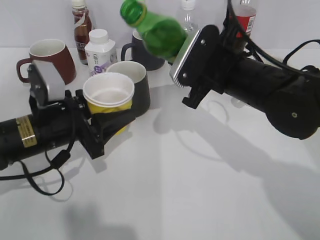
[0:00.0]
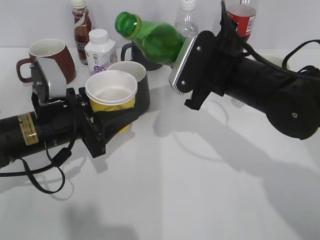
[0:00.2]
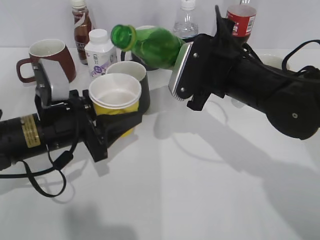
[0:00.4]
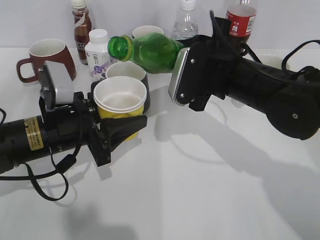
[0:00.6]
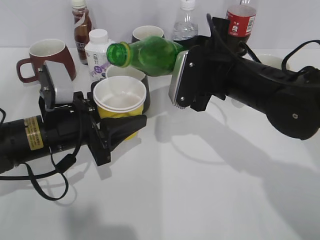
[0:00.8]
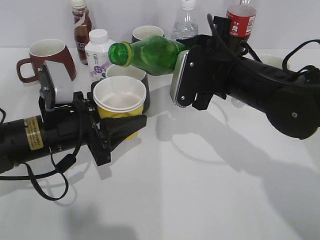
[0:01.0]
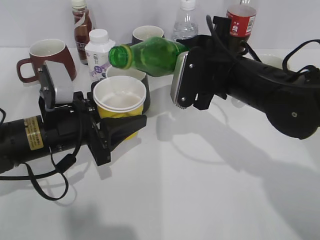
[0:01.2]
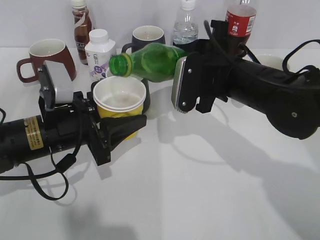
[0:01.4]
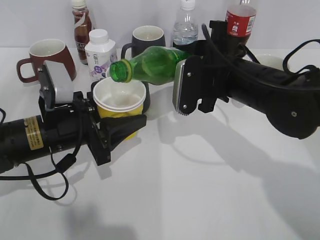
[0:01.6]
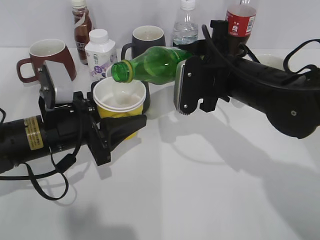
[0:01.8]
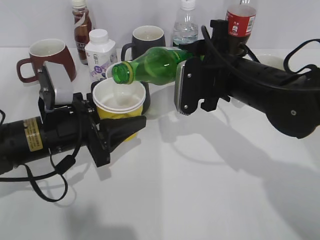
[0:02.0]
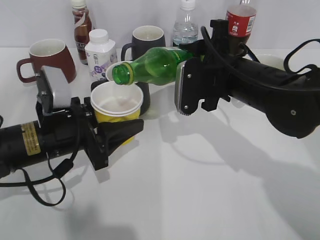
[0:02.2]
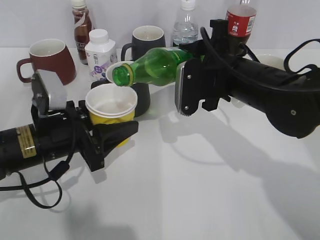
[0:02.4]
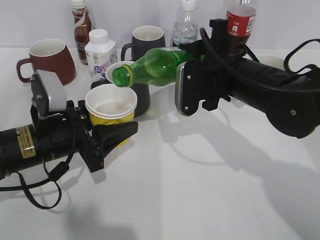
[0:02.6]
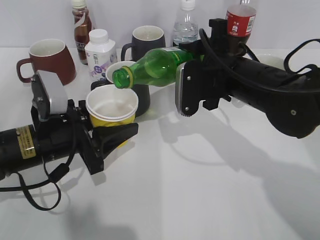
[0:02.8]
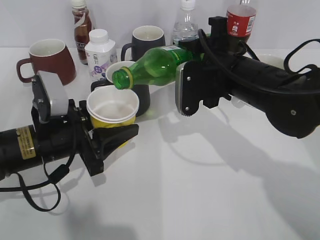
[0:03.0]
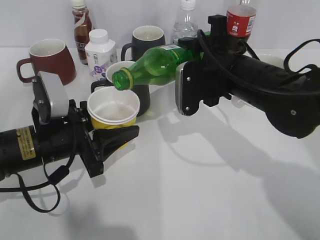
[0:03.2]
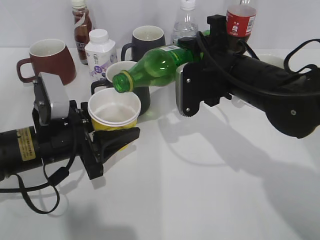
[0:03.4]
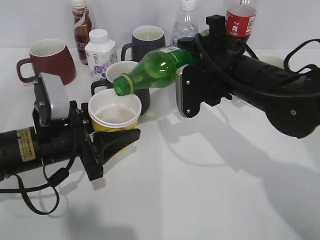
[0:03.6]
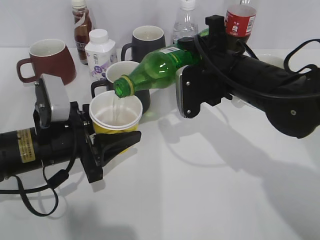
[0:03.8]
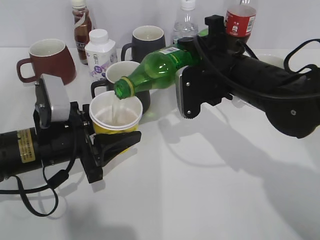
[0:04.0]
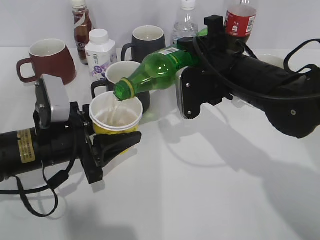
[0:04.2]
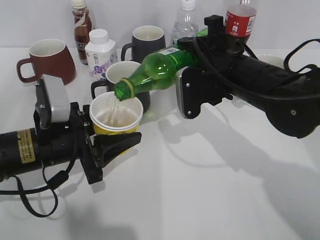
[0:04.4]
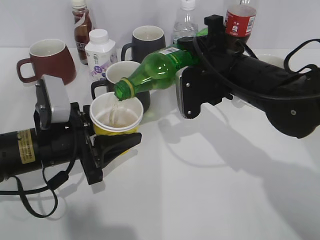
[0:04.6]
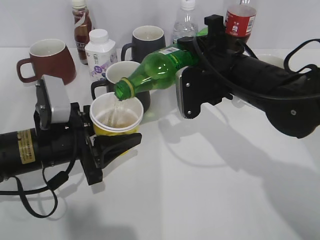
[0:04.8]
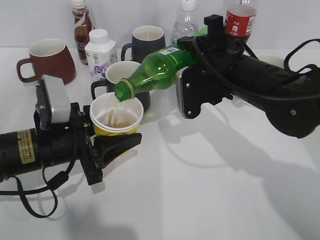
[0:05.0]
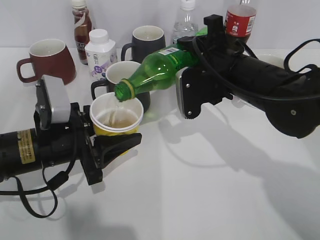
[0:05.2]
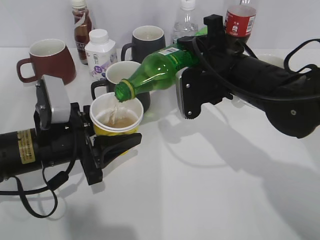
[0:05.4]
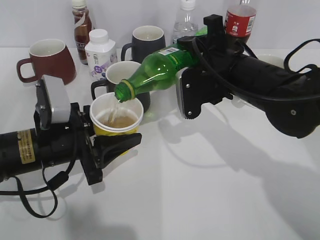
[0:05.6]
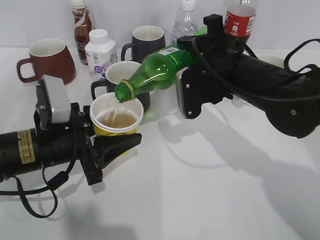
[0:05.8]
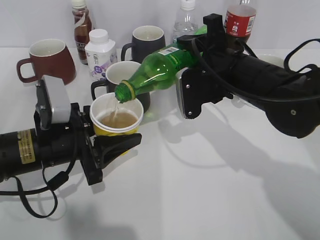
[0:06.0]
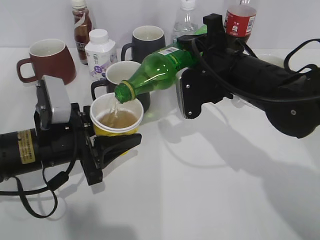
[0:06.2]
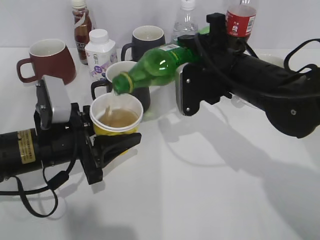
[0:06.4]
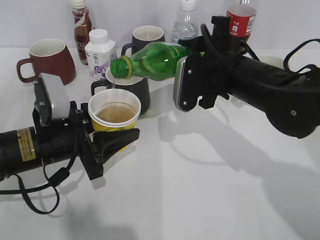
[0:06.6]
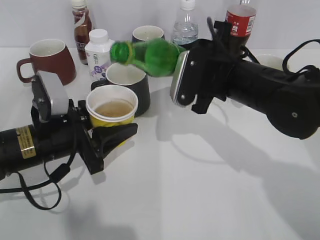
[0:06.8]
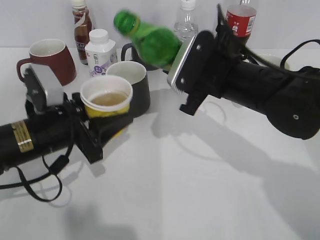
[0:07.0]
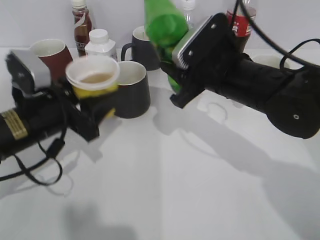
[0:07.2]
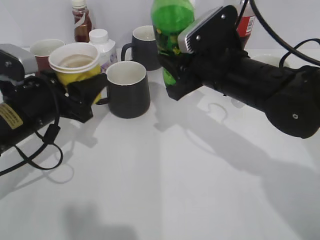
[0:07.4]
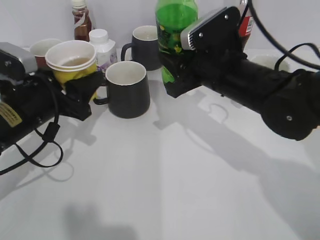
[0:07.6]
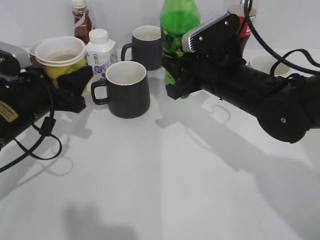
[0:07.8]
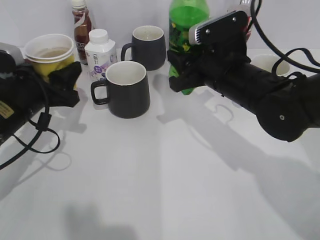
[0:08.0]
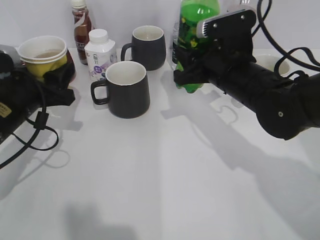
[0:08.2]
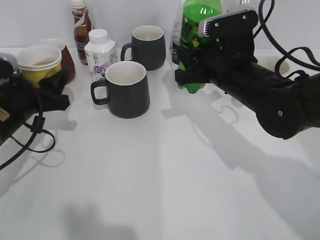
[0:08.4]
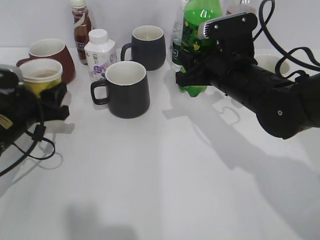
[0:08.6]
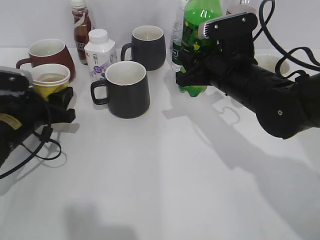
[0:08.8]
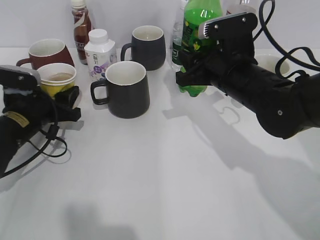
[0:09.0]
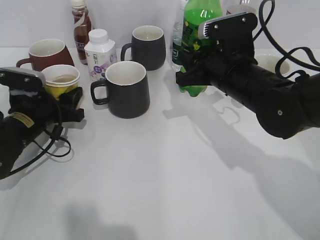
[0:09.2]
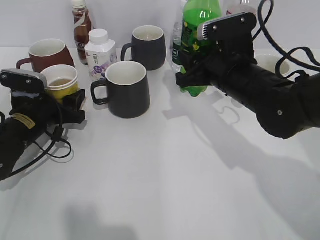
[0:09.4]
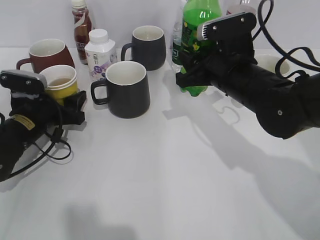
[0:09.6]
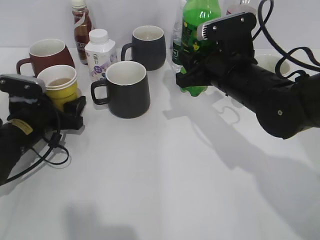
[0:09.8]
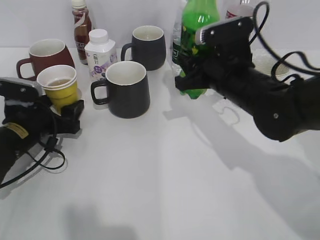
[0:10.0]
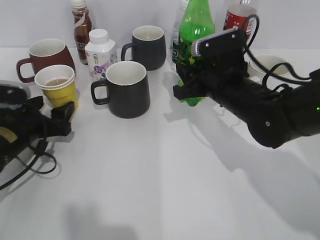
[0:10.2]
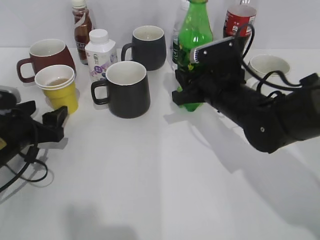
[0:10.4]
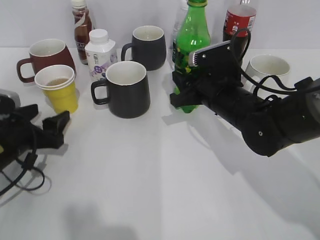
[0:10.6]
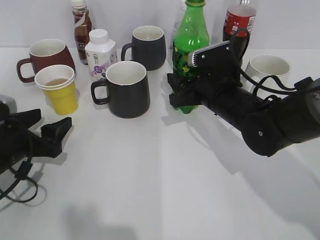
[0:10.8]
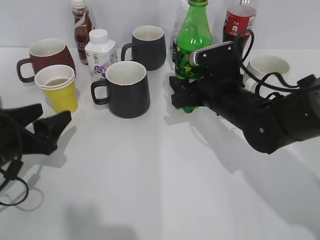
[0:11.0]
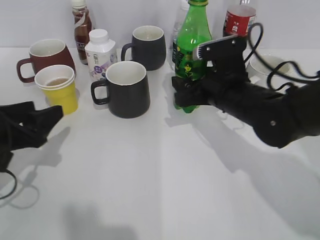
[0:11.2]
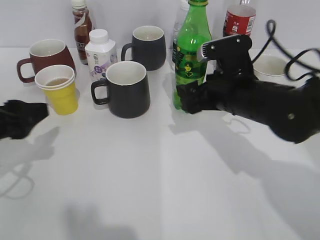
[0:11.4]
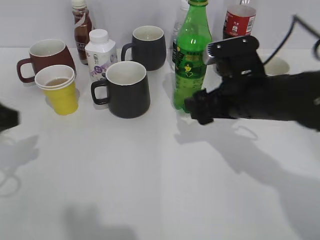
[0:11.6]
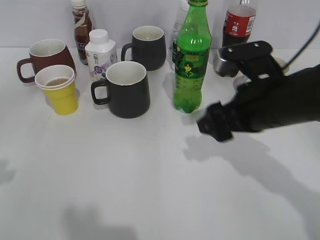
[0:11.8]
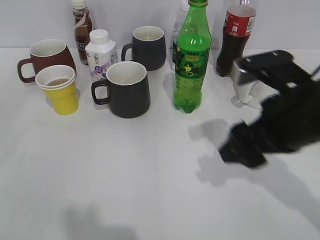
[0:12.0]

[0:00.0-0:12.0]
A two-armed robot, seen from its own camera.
Step, 0:00.0 to 0:06.6: Pour the sprite from bottle to cup with right gripper.
Step, 0:06.8 to 0:09.4: Place the yellow paper cup on the table with left gripper.
Step, 0:09.6 to 0:11.2: Place the sprite bottle on the table with right gripper.
0:01.6 to 0:04.4: The grippers move only a little.
0:04.4 to 0:06.0: Neither gripper changes place.
0:06.0 to 0:07.6: The left gripper changes place by about 5 cm.
0:07.6 to 0:09.0: The left gripper shifts some 5 cm downward.
0:09.0 to 0:10.4: The left gripper opens up.
0:10.4 to 0:12.0: The left gripper heads upward and backward, covering some 25 cm, while the right gripper shifts some 15 cm backward and upward, and opens its fingers.

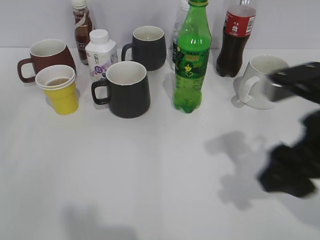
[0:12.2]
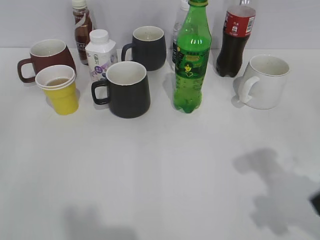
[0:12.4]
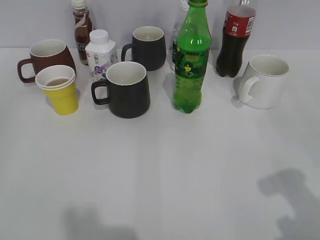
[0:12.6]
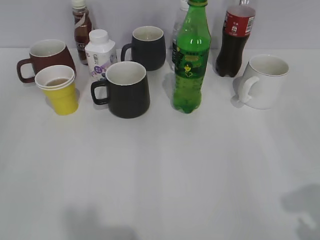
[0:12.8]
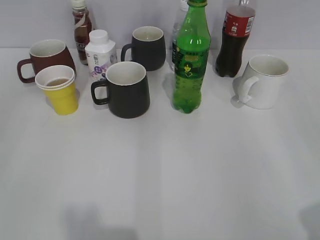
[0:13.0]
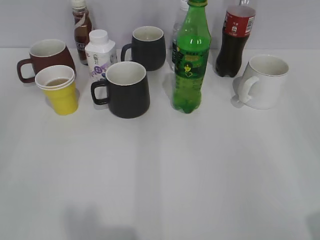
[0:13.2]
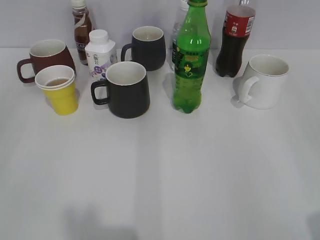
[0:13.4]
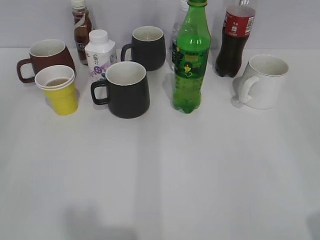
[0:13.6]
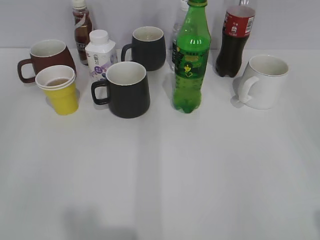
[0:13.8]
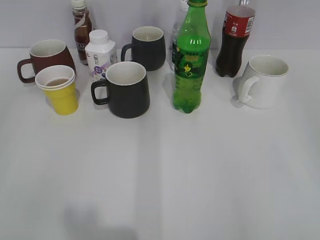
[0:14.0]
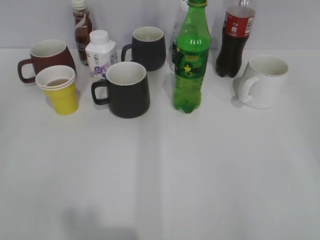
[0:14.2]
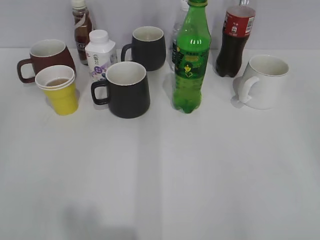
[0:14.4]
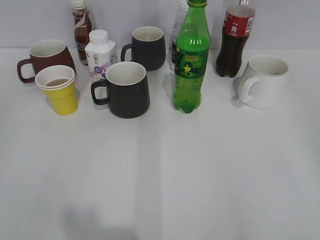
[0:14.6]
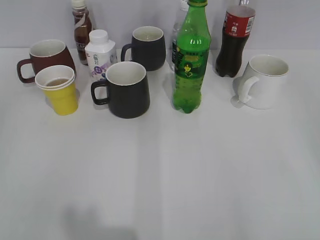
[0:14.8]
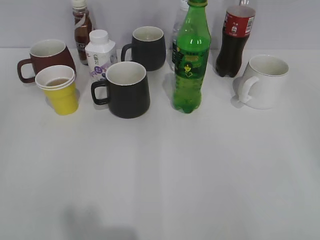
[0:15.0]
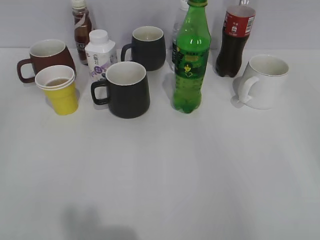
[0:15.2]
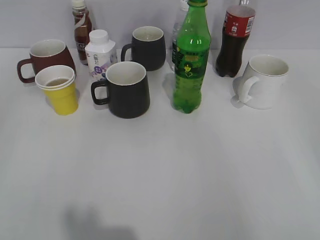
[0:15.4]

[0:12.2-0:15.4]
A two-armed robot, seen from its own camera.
0:12.2 to 0:13.8: The left gripper is displaced backward by roughly 5 cm; the right gripper goes some 20 cm backward and to the right.

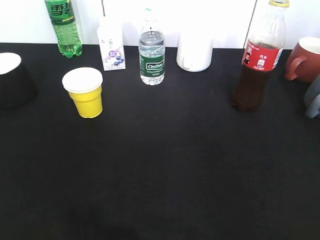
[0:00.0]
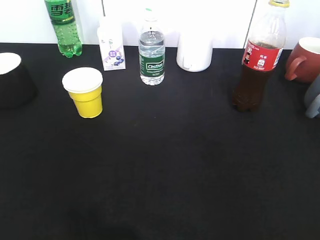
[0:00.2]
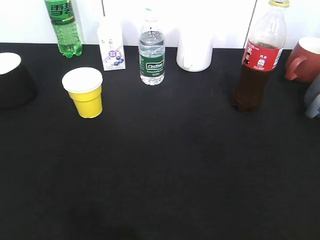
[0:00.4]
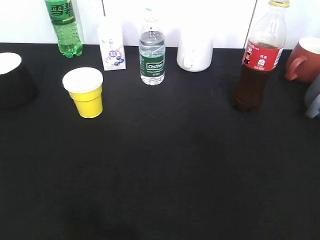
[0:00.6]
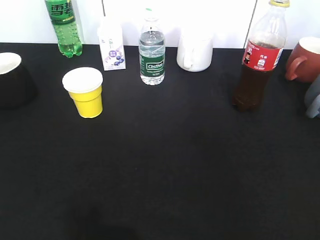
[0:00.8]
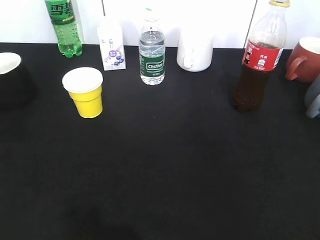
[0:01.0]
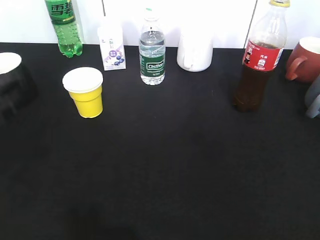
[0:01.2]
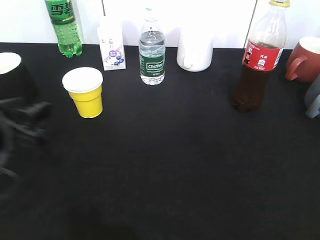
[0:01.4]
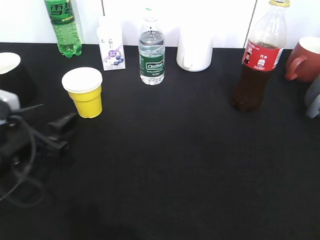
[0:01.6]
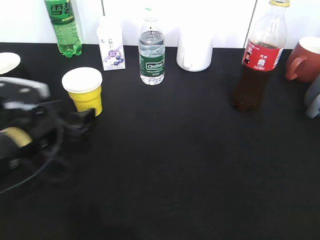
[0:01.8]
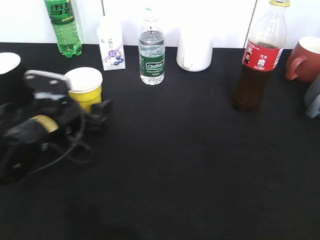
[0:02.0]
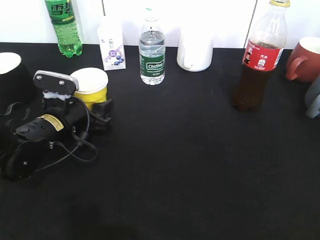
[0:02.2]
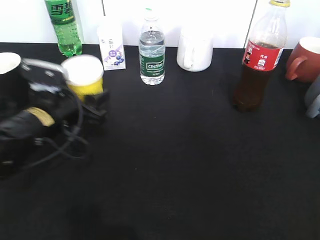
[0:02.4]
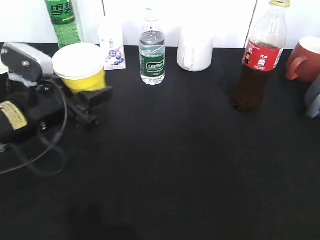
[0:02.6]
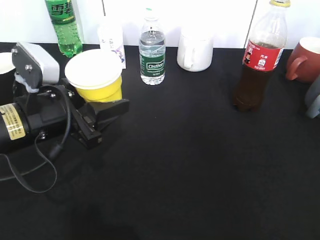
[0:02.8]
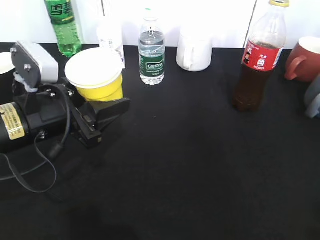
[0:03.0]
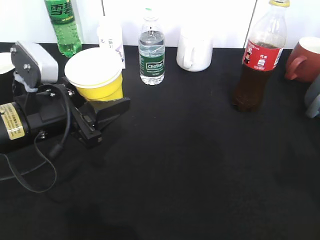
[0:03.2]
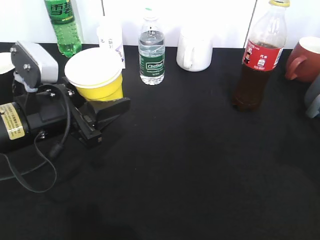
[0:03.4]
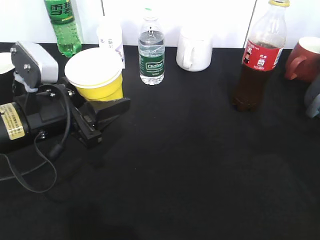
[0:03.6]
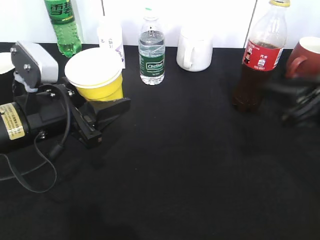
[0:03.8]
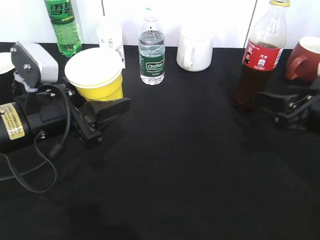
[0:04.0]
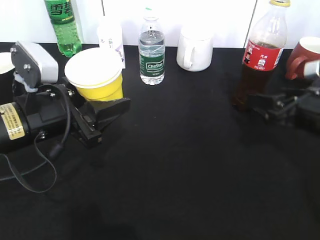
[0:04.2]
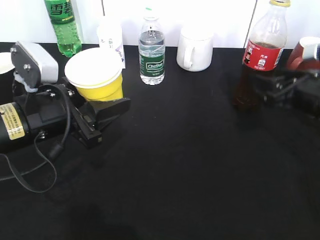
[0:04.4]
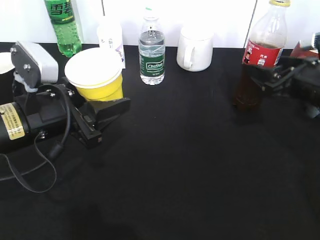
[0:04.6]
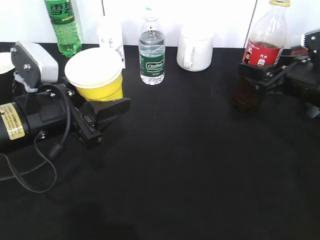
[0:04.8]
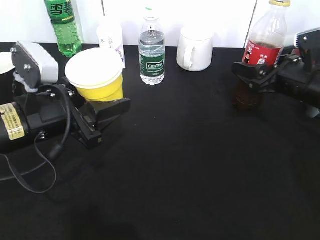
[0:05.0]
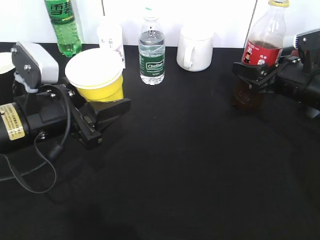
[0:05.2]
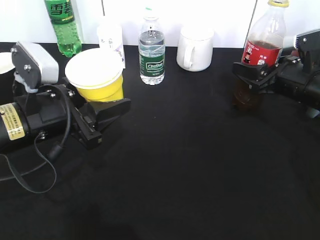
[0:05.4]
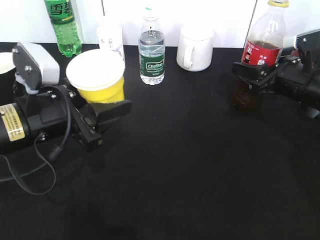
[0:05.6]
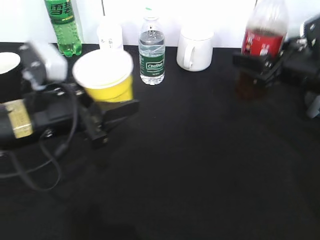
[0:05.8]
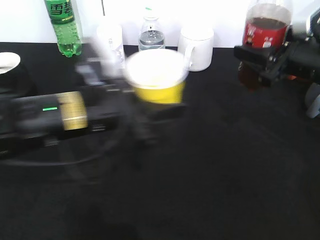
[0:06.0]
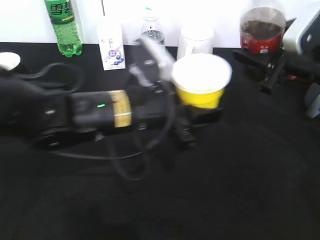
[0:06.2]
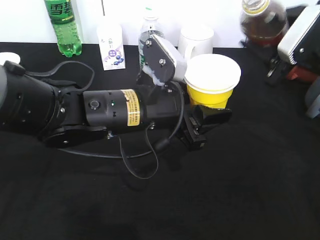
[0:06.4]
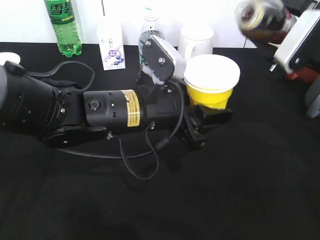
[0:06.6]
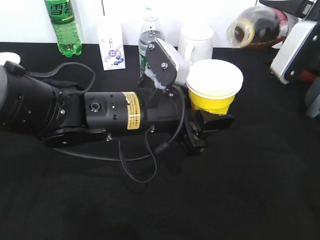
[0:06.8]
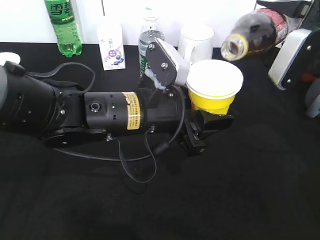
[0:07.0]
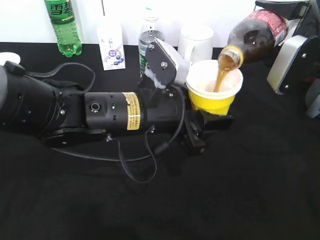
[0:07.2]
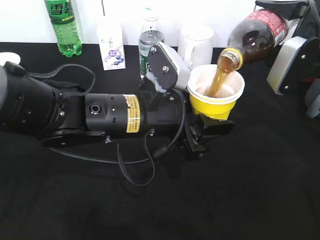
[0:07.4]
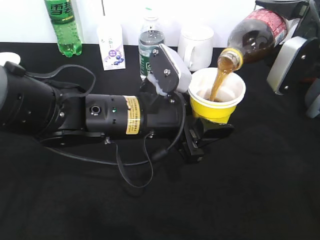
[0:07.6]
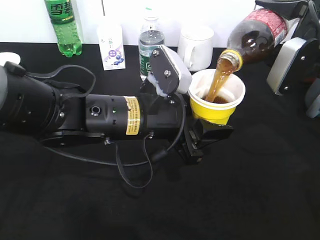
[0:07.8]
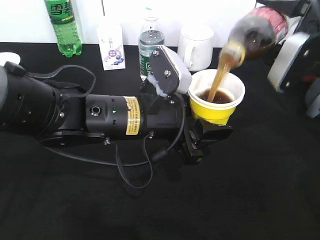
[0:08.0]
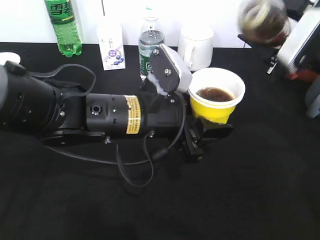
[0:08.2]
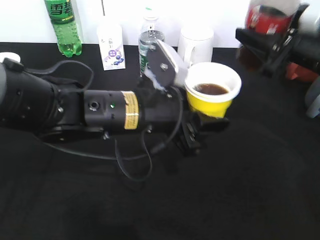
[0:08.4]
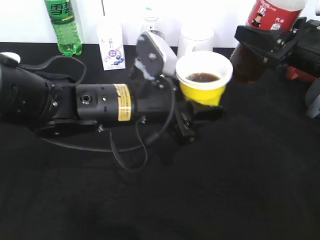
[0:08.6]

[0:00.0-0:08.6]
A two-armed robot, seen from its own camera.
Step, 0:00.0 to 0:02.2: Grasp the yellow paper cup with left gripper.
Step, 0:02.4 to 0:03.2: Lift the yellow paper cup with left gripper.
Step, 0:03.4 to 0:05.6: Grasp the bottle with cola with right gripper.
Step, 0:05.8 to 0:07.8: Pour the cola from bottle to cup with right gripper.
0:00.0 to 0:01.4: The left gripper travels forward, downward and to the right by roughly 25 cm.
0:01.4 to 0:02.8: The left gripper goes some 5 cm to the right, travels forward and back again, some 10 cm each way, and opens, then closes once more.
0:02.8 to 0:04.4: The right gripper heads forward and downward, covering approximately 30 cm, and opens up.
0:04.4 to 0:05.8: The right gripper closes its fingers.
0:05.8 to 0:07.2: The left gripper moves to the right, about 15 cm.
